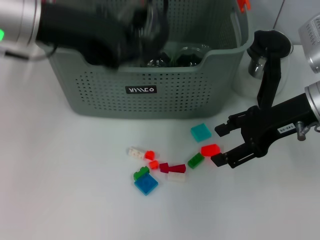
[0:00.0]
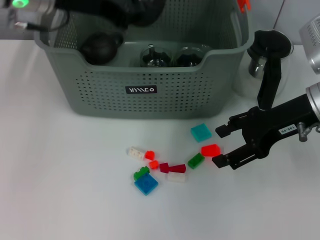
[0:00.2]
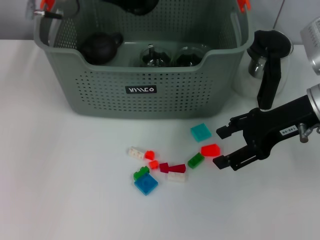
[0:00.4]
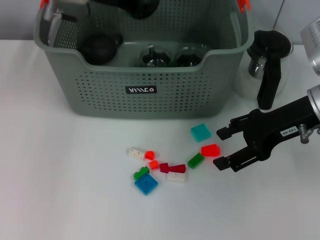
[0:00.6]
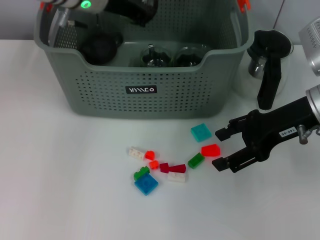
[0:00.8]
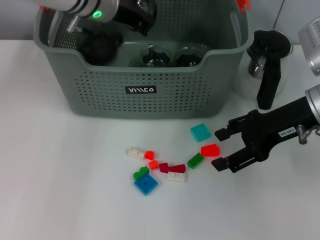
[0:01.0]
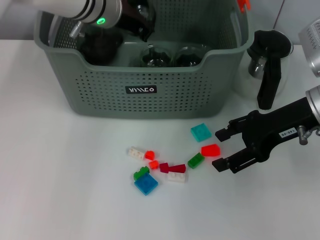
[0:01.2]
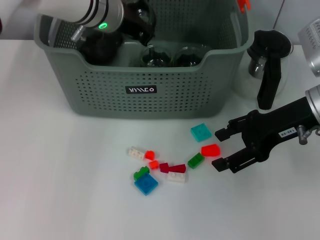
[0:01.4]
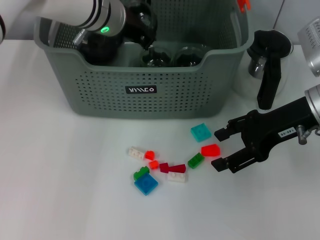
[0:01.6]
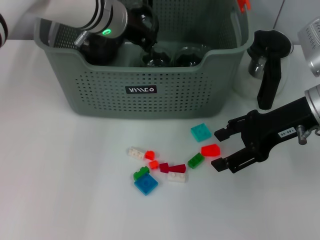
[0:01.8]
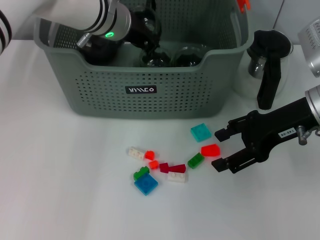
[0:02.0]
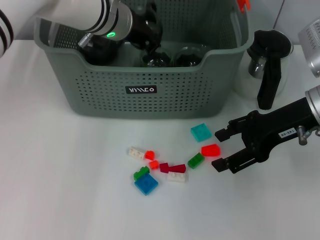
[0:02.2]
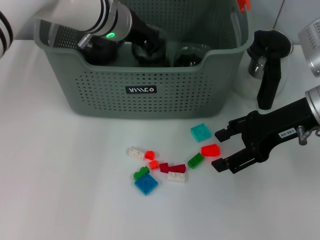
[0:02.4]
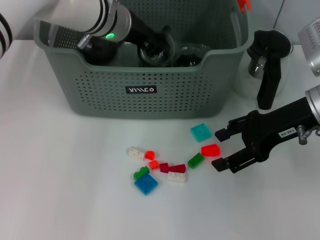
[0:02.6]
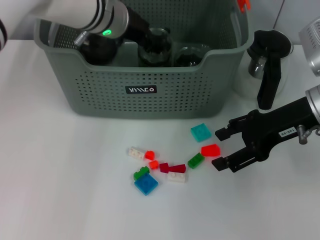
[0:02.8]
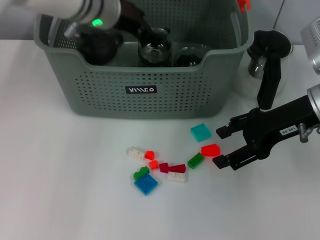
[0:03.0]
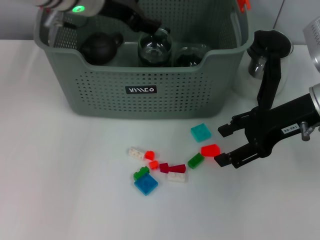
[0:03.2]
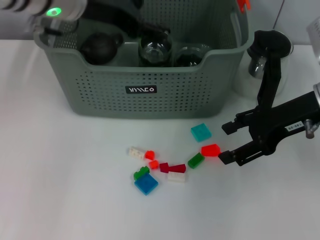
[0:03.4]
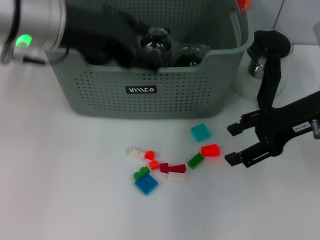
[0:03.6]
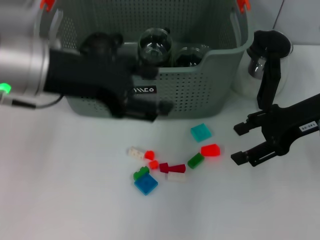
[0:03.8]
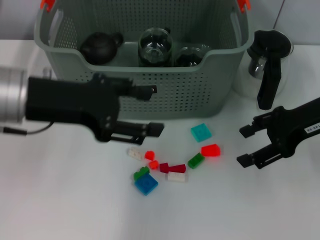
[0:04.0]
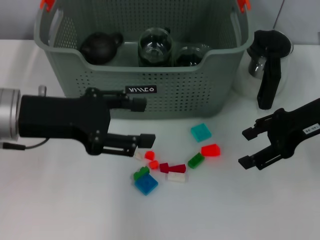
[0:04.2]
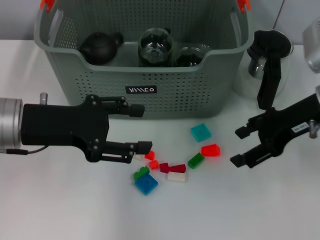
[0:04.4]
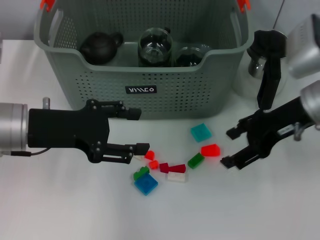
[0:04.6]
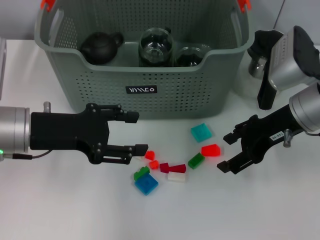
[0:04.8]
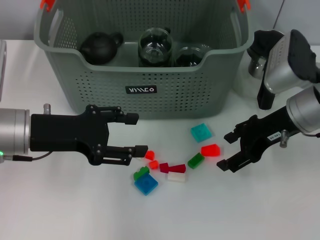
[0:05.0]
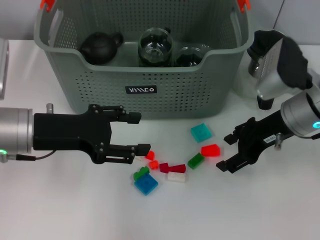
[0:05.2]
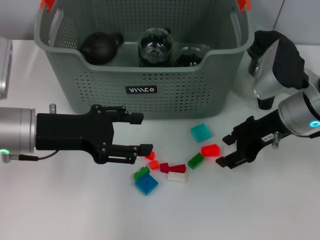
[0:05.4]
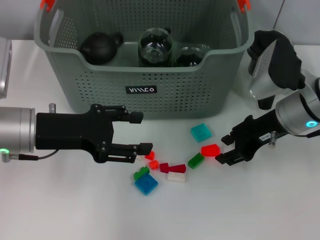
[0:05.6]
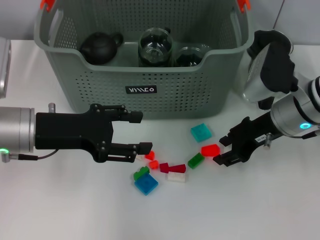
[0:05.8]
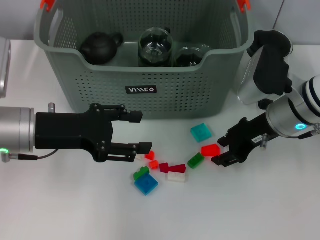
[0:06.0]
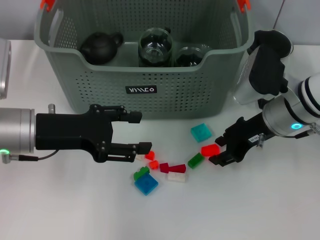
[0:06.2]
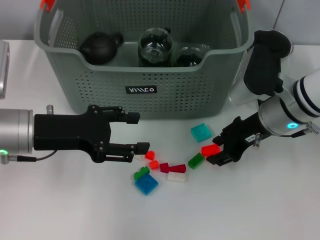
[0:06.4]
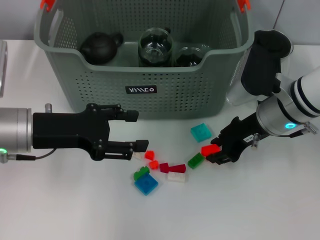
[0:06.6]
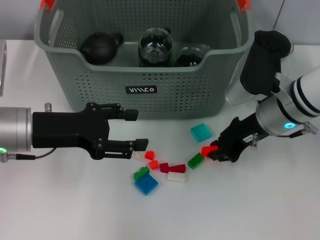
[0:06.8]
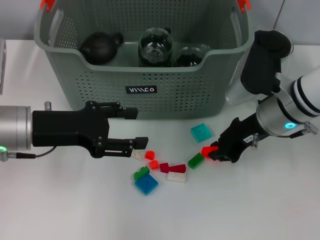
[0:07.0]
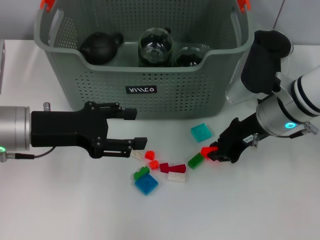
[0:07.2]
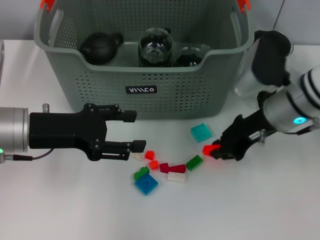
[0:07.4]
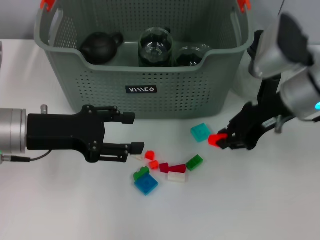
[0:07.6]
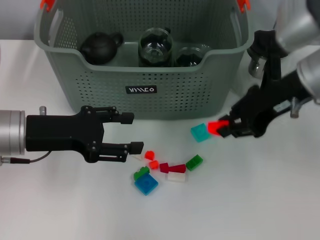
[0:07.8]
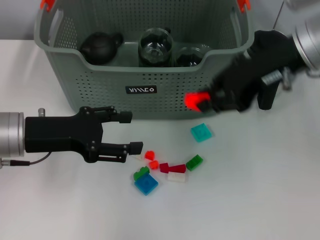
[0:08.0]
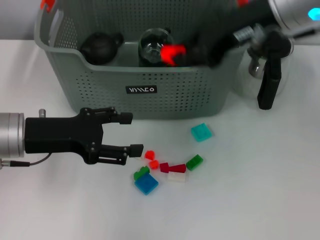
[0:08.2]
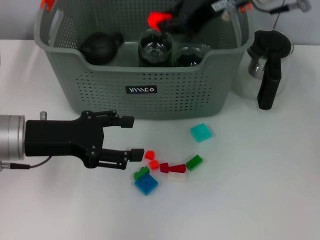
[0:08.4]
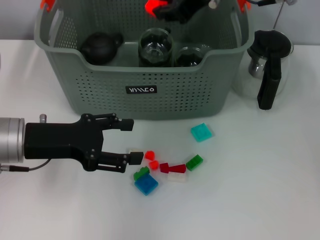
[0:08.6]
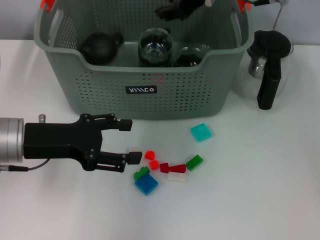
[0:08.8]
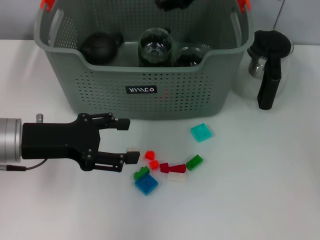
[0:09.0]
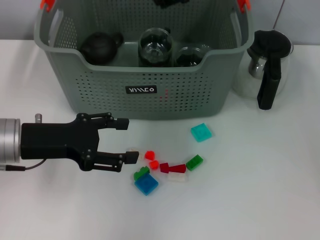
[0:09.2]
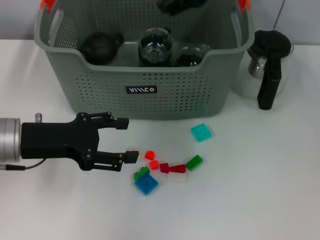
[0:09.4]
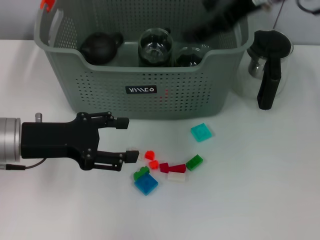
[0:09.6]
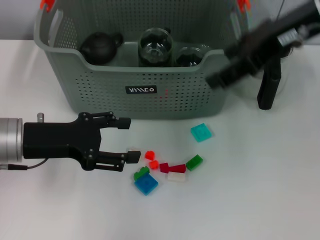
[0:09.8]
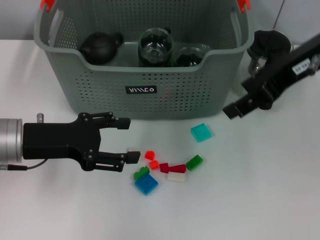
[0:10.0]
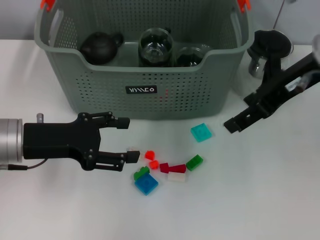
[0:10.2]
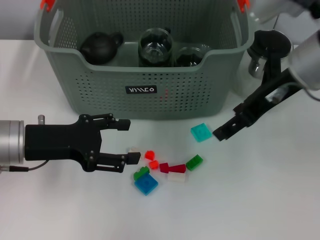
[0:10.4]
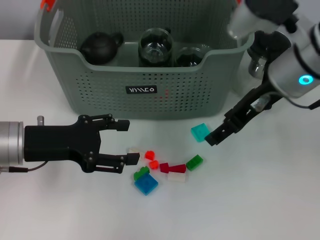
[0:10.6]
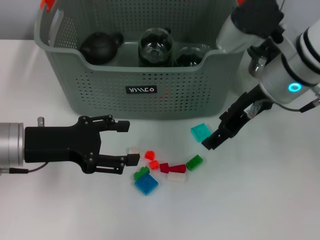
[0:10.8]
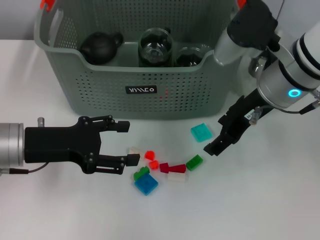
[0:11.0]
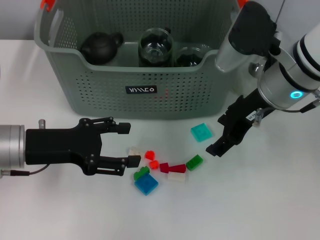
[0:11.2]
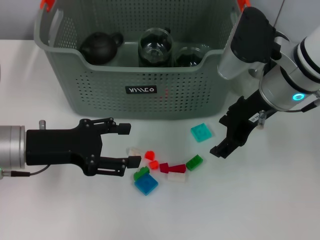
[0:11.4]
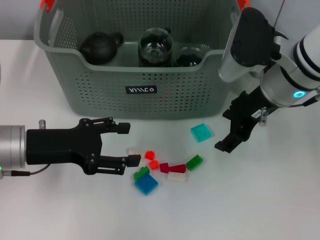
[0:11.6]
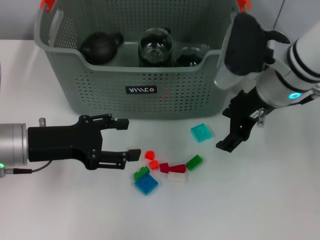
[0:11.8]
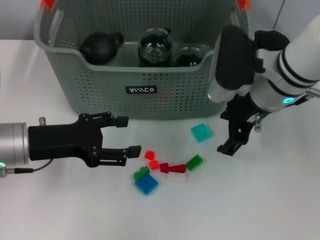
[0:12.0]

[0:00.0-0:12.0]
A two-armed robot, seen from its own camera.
Task of the whole recording: pick up the teacup on the table and place it into the storage bin, pick up the block on the table and place it into the storage bin.
Step, 0.0 to 3.2 s: Place the cup in the storage box with left gripper.
Step, 3.4 to 7.0 s: Grasp the orange block with right gripper.
Step, 7.2 to 8.8 s: Place the orange block in the storage box with right gripper.
0.0 to 1.6 s: The left gripper goes approximately 15 cm forward, downward and to the right.
1.6 to 3.0 s: The left gripper opens up.
3.0 to 4.4 s: The left gripper moves backward and to the left, approximately 20 cm.
4.4 to 6.0 s: The right gripper moves downward, about 5 cm, and closes up.
6.0 to 7.6 s: The right gripper is displaced upward by some 5 cm, and closes its fingers.
7.6 to 9.0 s: The right gripper shifts about 15 cm upward, to the left and forward.
9.0 to 10.4 s: The right gripper travels backward and to the right by about 10 cm, and opens.
10.4 to 12.0 s: The right gripper goes approximately 5 cm downward.

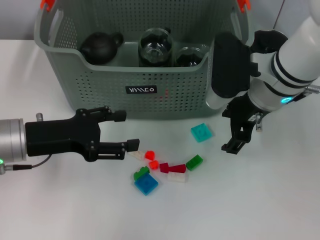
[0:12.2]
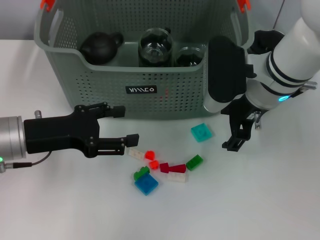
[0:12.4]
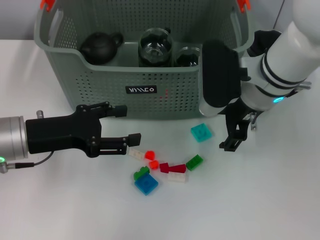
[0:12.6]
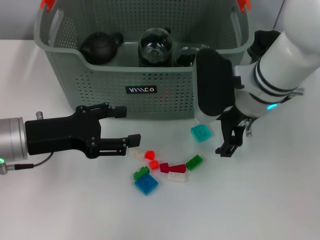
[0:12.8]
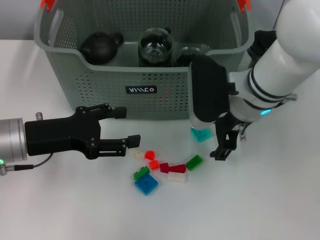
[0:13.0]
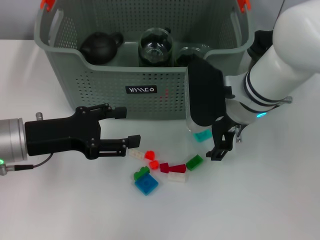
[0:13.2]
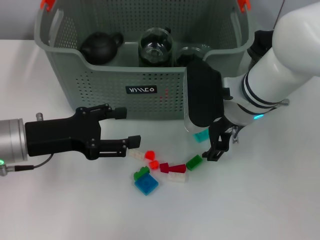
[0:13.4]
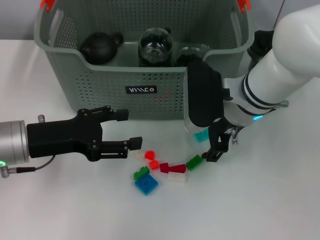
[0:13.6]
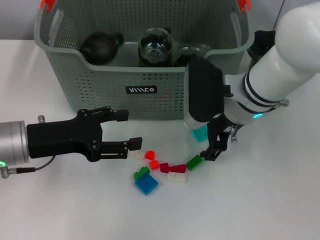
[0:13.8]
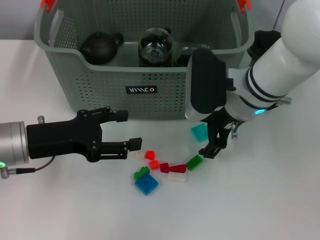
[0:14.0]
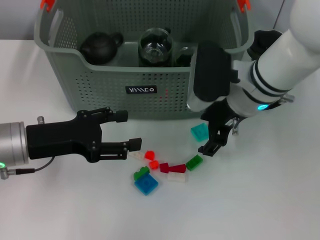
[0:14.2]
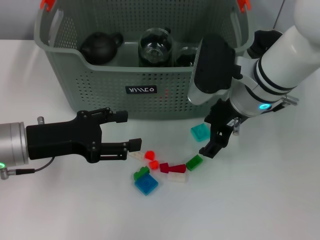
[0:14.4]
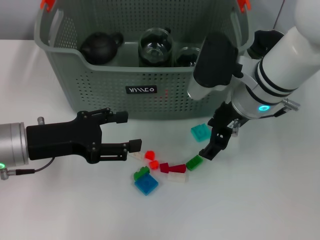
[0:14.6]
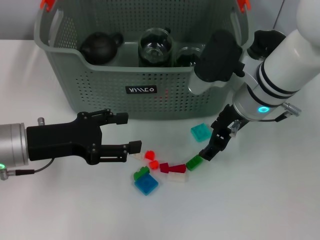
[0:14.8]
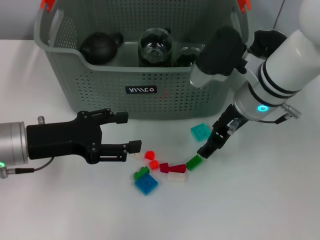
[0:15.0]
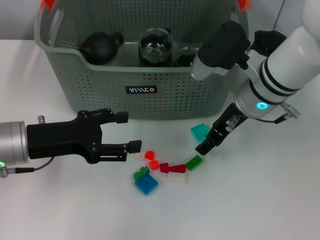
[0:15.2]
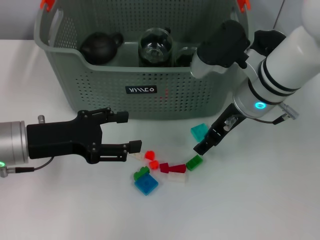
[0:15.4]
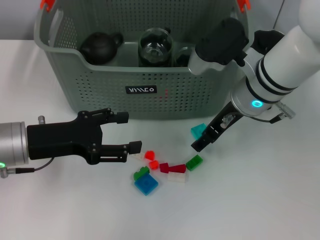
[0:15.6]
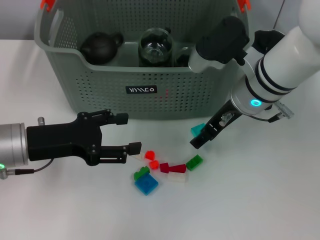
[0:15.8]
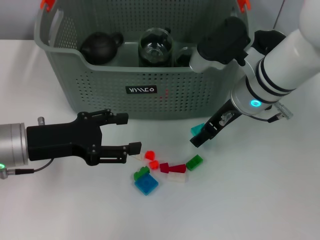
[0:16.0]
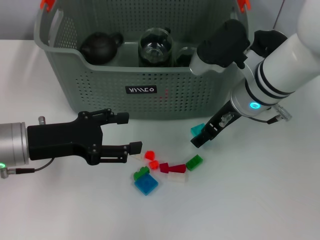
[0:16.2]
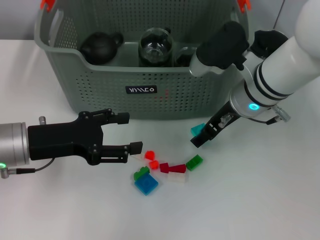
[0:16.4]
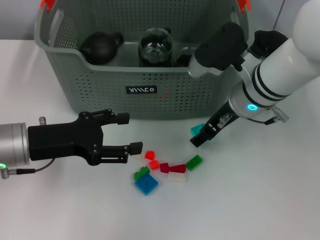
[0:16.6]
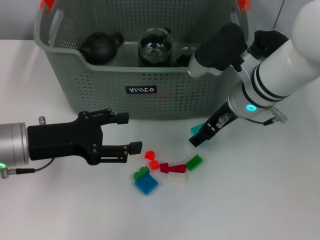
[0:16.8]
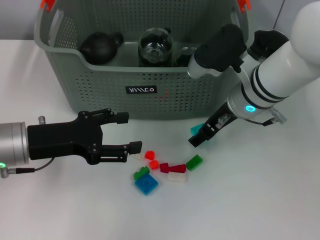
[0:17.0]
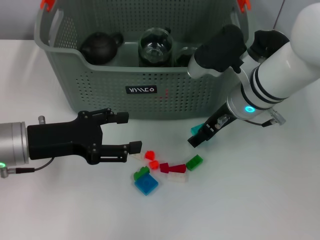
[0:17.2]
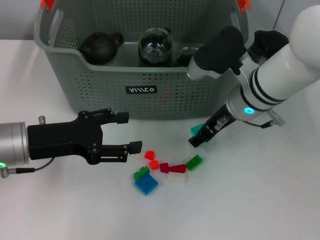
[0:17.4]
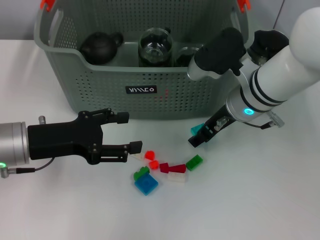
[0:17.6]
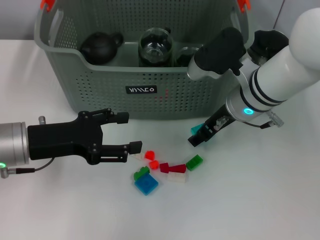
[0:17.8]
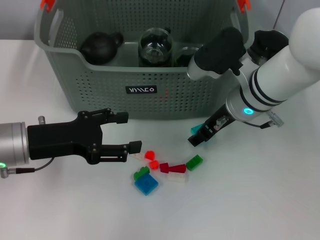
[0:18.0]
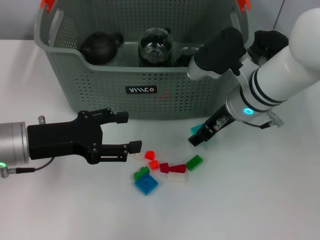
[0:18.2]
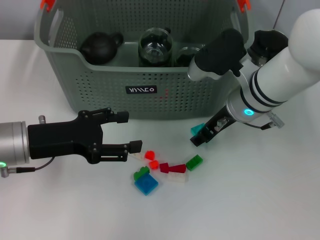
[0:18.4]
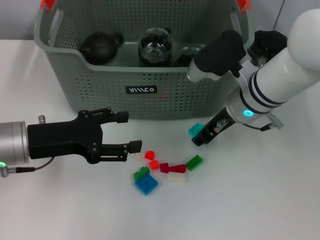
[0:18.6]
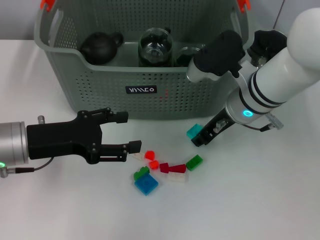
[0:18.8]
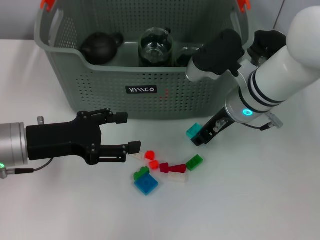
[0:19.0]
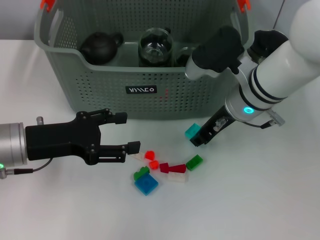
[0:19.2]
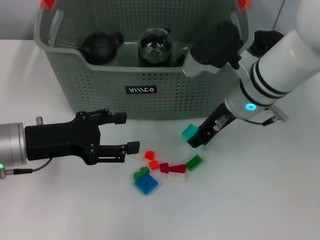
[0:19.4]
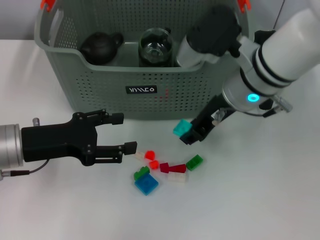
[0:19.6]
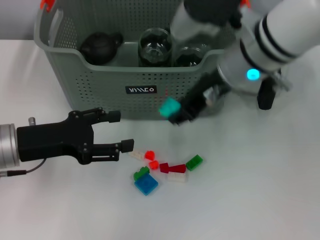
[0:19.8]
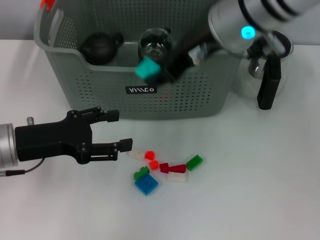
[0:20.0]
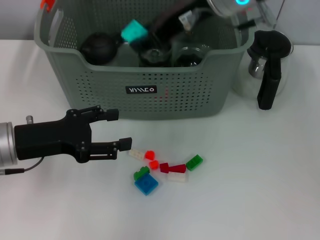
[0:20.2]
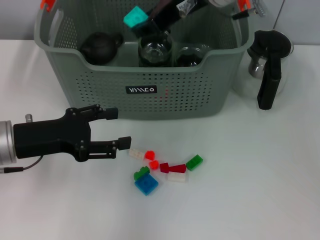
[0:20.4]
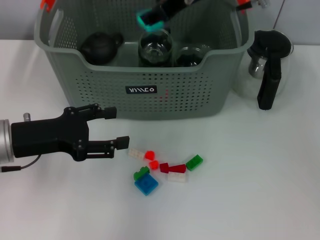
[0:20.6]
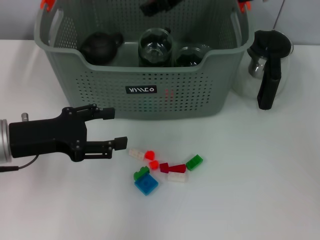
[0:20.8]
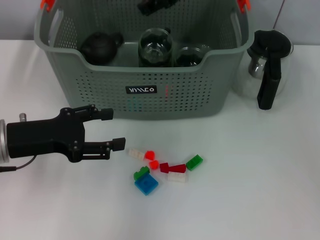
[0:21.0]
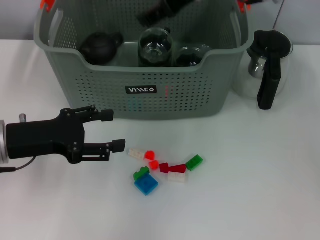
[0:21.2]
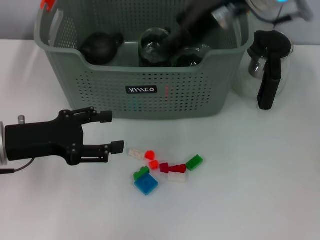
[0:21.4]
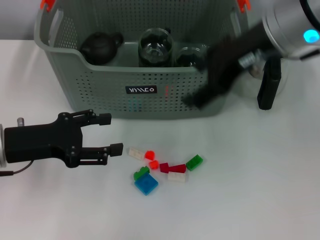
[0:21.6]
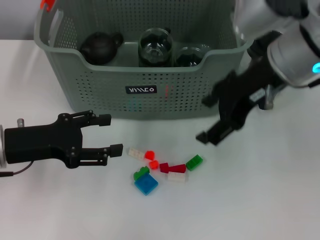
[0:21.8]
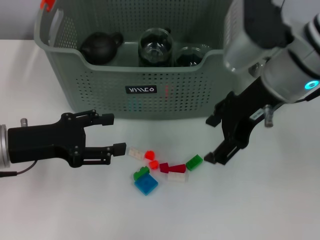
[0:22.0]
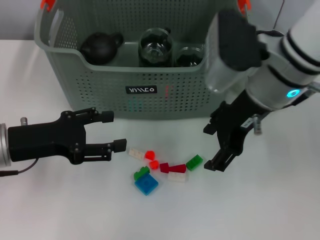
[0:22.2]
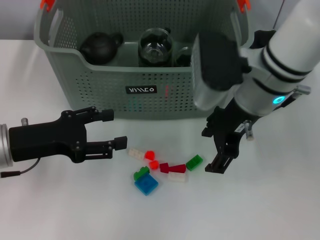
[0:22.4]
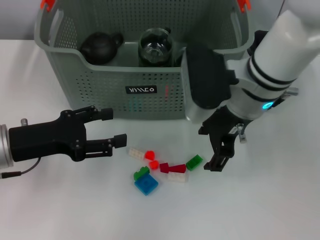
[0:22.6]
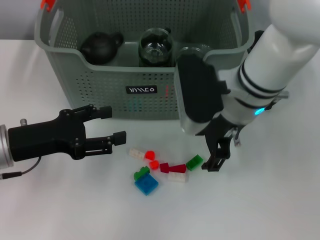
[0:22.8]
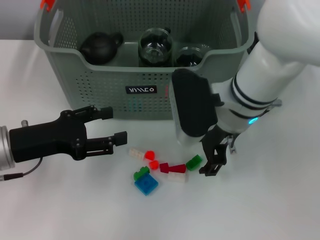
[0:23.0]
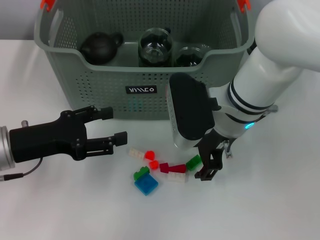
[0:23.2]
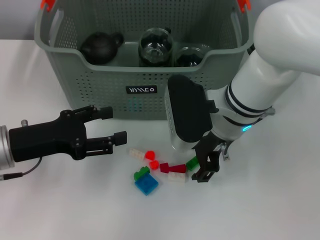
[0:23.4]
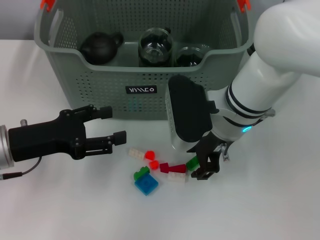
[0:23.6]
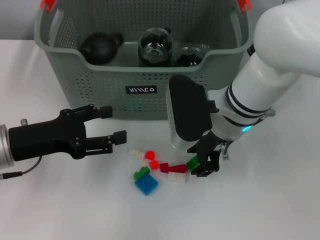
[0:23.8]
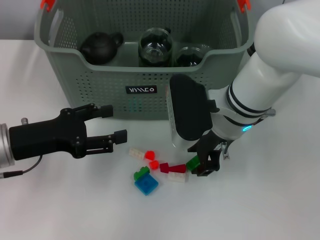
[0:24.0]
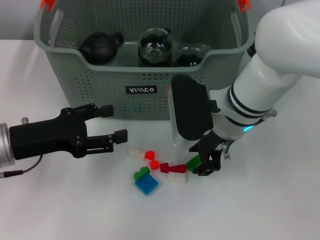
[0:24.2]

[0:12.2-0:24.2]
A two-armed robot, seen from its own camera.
Task of the whole recording: pick up the teacup on the table and place it into the storage bin, pick up the block on the table and place it into the storage bin.
Step, 12.2 to 18.6 s: Grasp the light blue block with right gripper.
Step, 18.8 to 20.6 s: Place the light blue block in the storage box with right gripper.
12.2 to 13.8 s: There are only small adjustments of the grippers.
15.2 to 16.6 s: The grippers move only a little.
16.6 to 18.2 s: Both grippers stay put.
18.2 to 19.8 s: The right gripper shifts about 10 cm upward, and closes its fingers.
19.8 to 21.2 s: The right gripper travels upward and forward by roughly 10 cm, and opens.
21.2 to 22.6 s: The right gripper travels downward and backward by roughly 15 cm.
22.6 to 24.2 s: The right gripper closes up.
